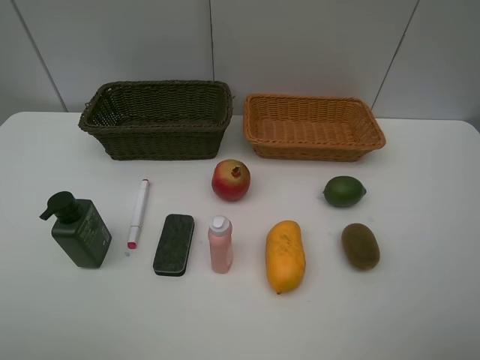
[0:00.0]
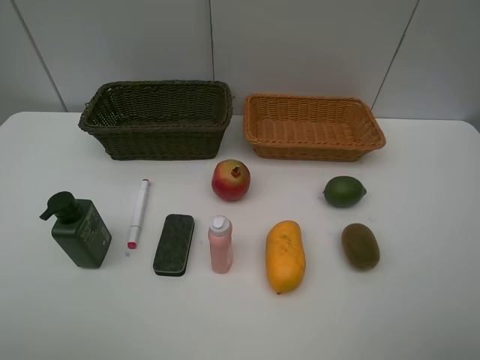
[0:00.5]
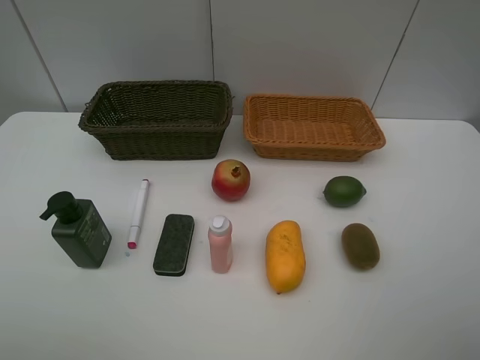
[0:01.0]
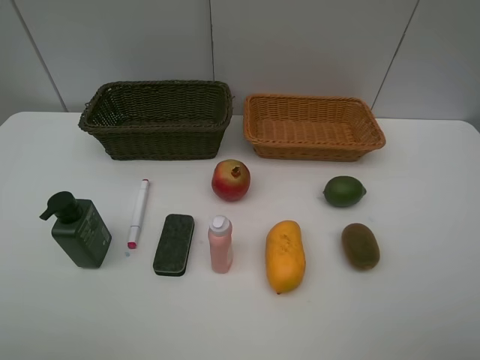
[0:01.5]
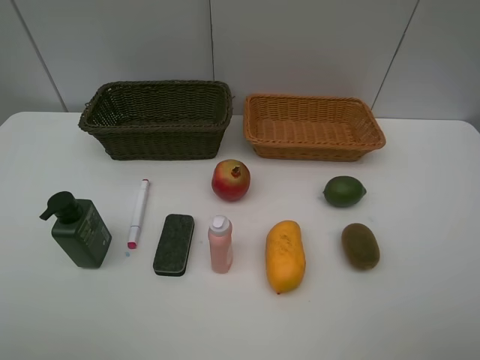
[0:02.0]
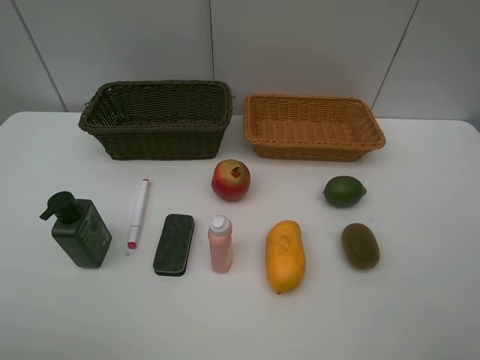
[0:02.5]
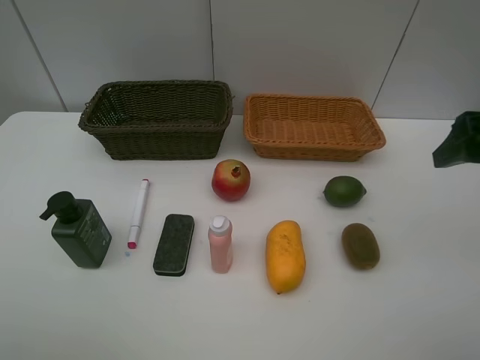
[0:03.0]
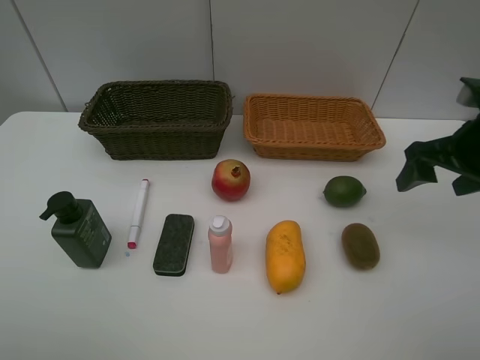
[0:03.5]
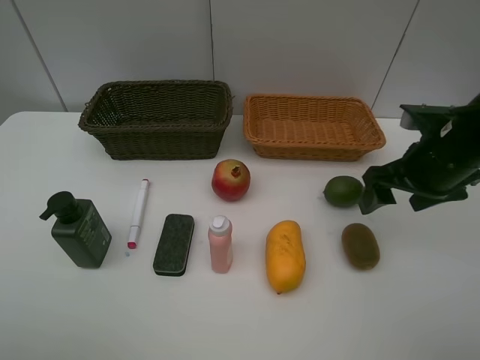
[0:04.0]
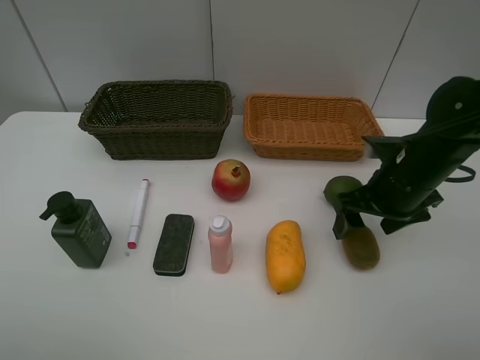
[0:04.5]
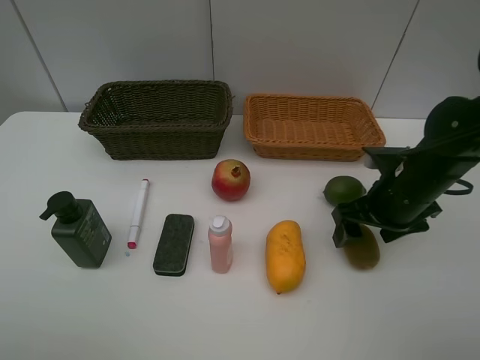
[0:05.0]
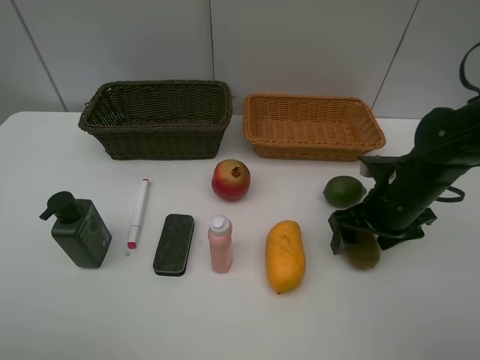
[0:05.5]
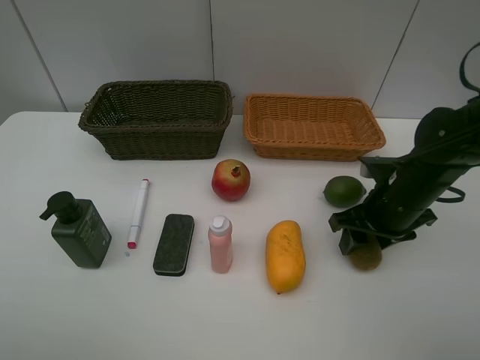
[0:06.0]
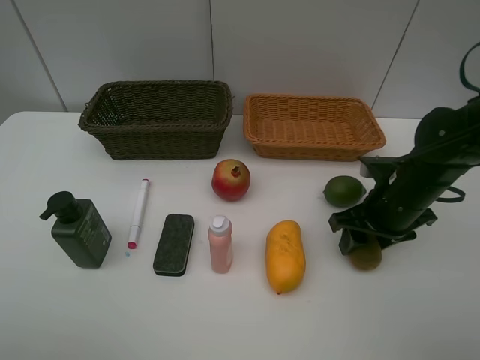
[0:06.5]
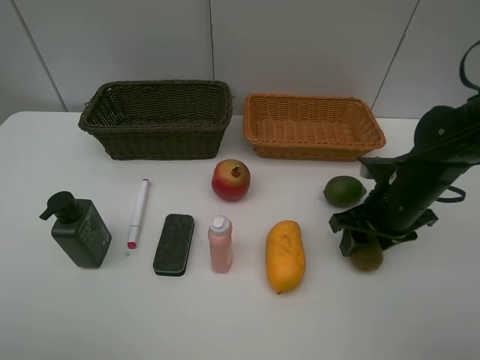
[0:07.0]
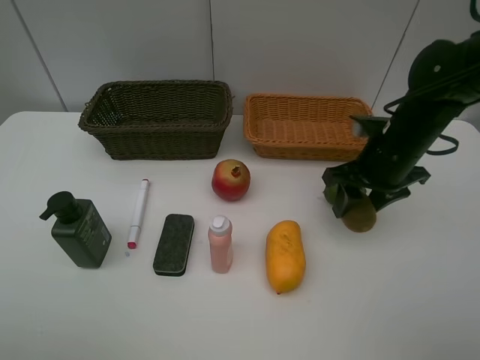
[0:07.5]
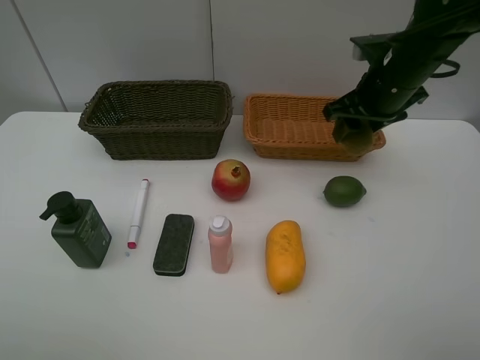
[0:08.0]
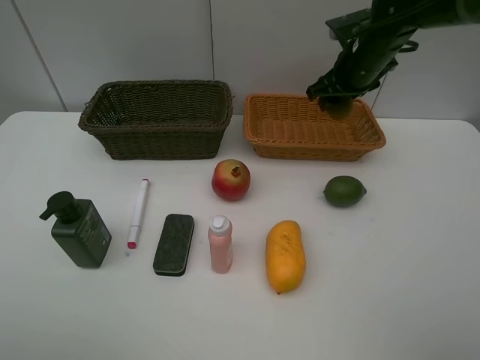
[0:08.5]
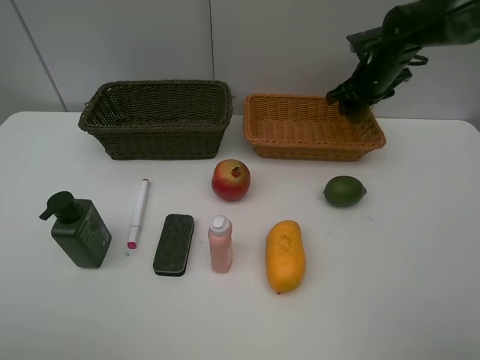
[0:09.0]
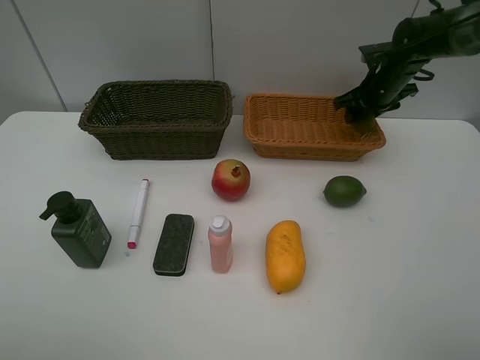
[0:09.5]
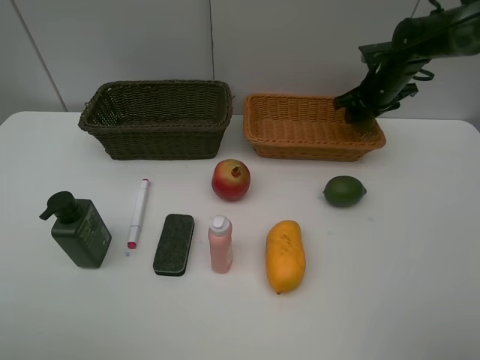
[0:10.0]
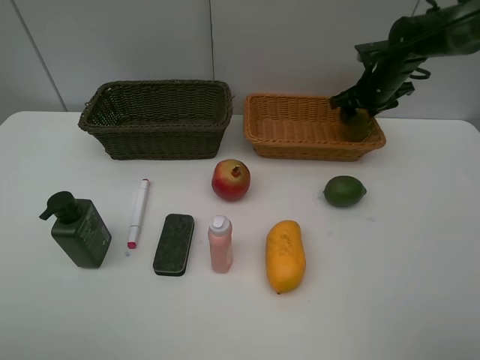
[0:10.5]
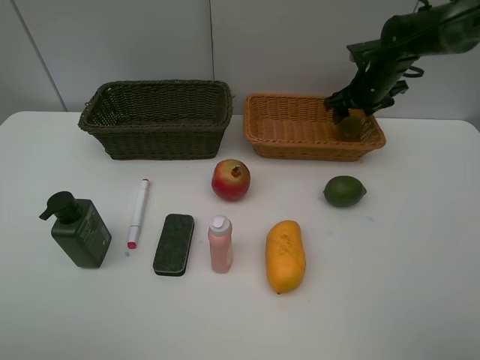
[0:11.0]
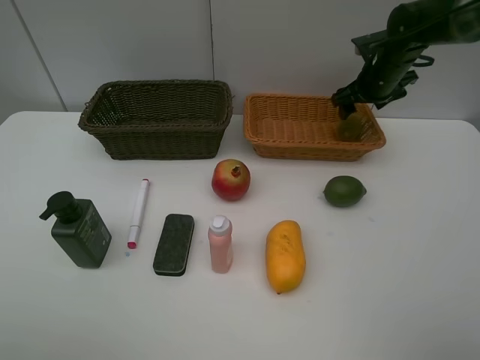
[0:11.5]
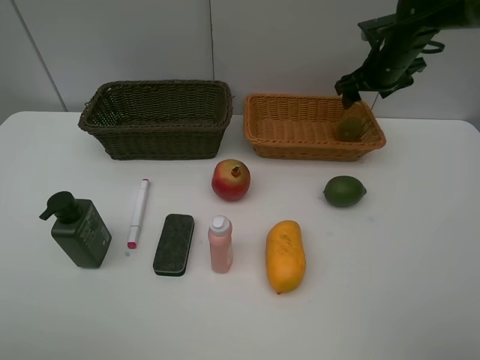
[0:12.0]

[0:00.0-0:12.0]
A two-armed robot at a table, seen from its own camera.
Task of the whole recording: Place multiple objects separately in different baskets.
Step, 0:00.0 to 0:07.0: Pick up kiwi with right gripper.
Step, 0:07.5 to 0:11.5: Place the kiwi in the light basket with right gripper.
0:00.0 to 0:02.0: Neither gripper changes place.
0:02.0 to 0:04.0: The right gripper moves forward, approximately 25 cm.
0:04.0 to 0:06.0: The right gripper goes about 5 cm downward, and closes.
0:06.0 to 0:08.0: The right gripper moves upward and forward, about 15 cm.
0:08.0 to 0:10.0: The right gripper moves forward, downward and to the right, about 15 cm.
0:10.0 to 0:12.0: The right gripper changes place by about 5 cm, and opens up.

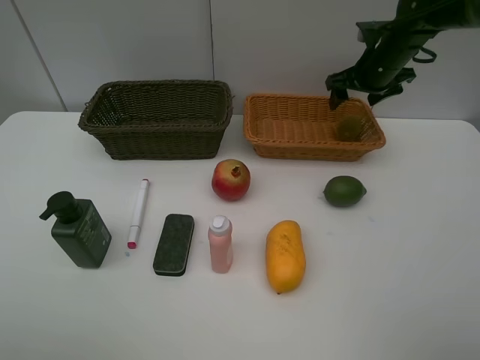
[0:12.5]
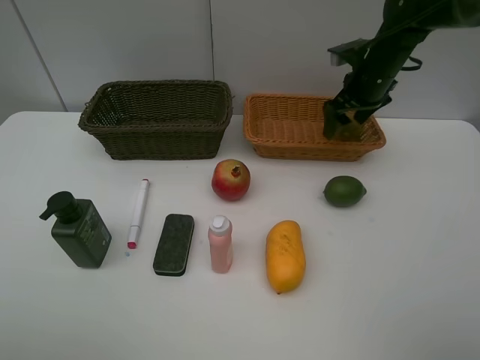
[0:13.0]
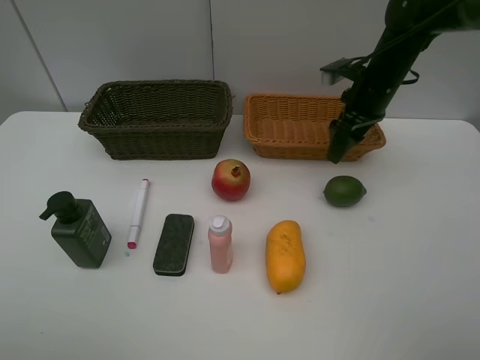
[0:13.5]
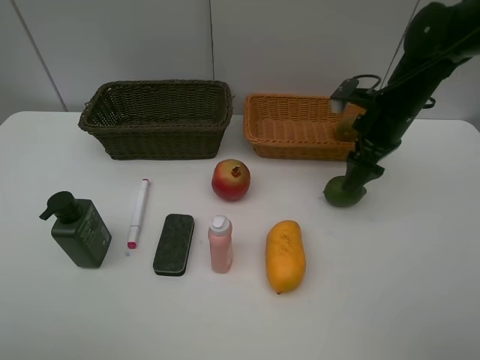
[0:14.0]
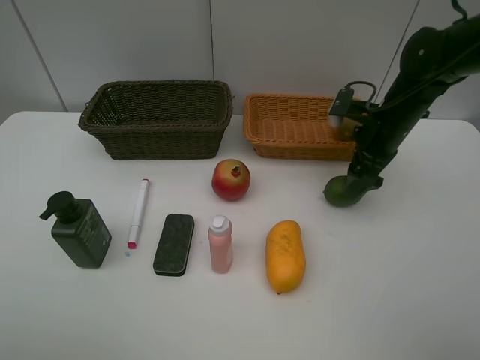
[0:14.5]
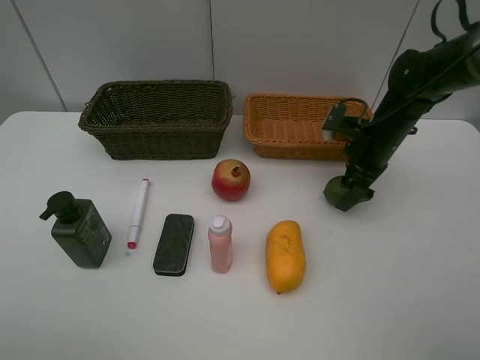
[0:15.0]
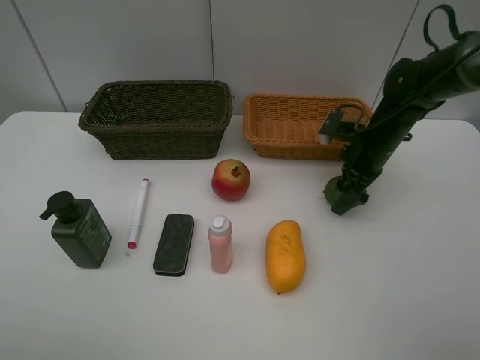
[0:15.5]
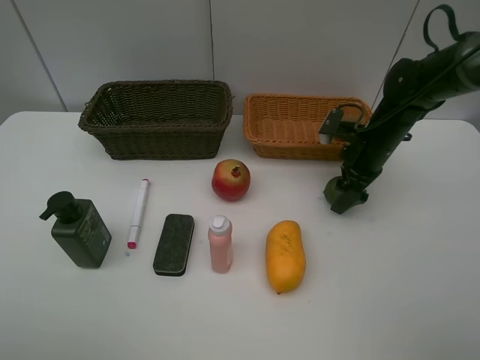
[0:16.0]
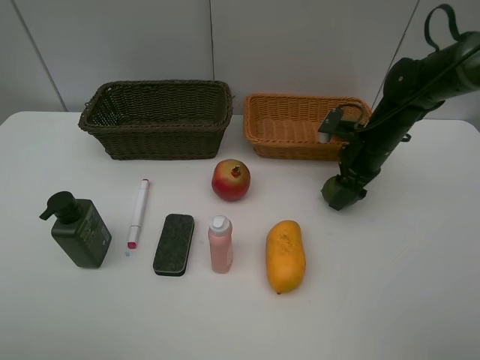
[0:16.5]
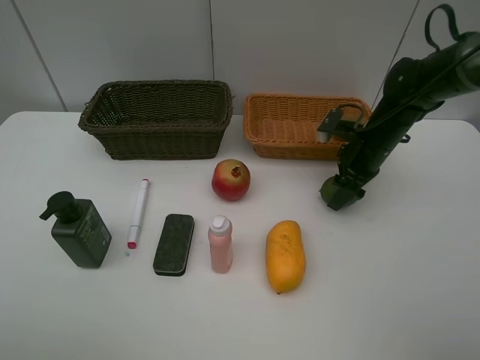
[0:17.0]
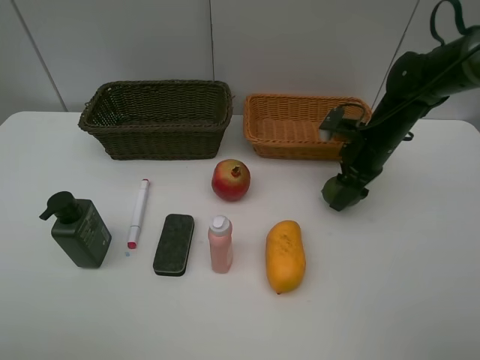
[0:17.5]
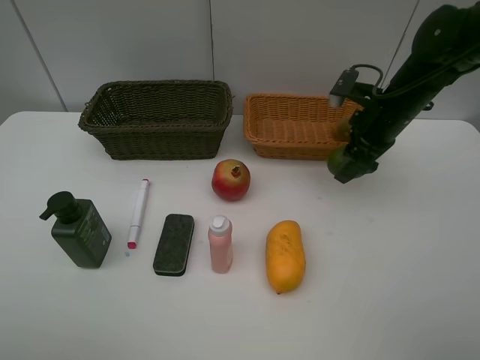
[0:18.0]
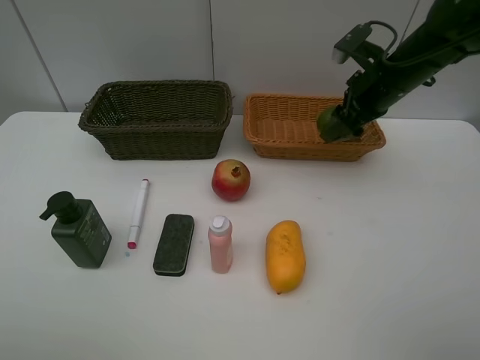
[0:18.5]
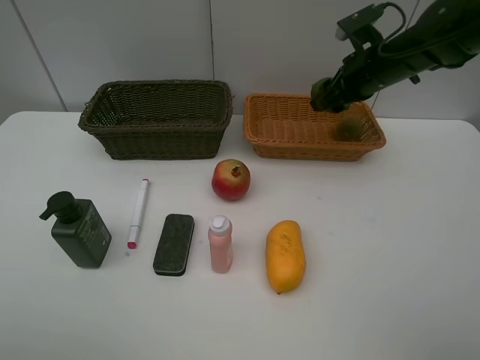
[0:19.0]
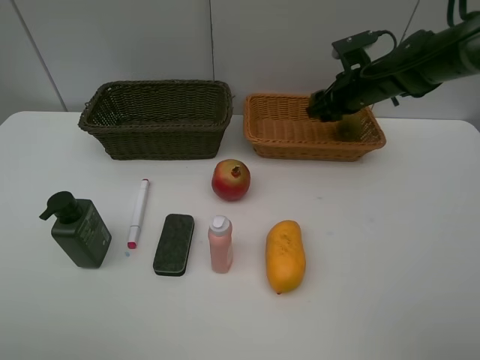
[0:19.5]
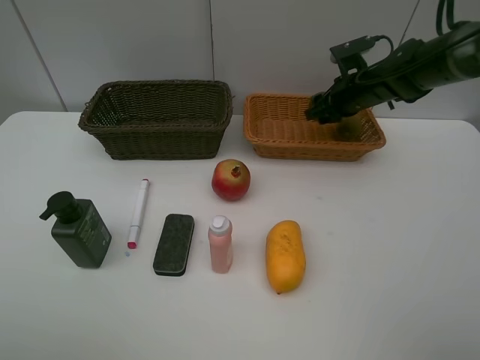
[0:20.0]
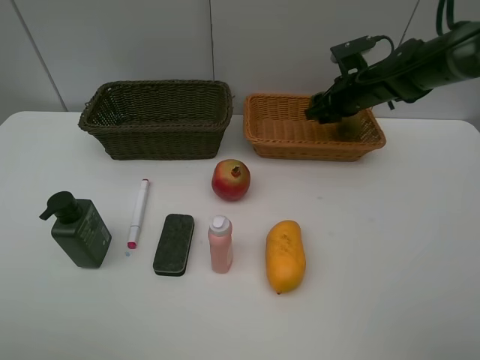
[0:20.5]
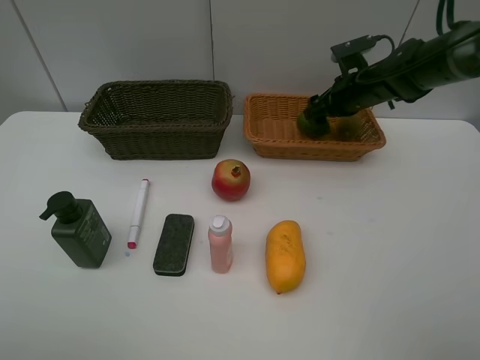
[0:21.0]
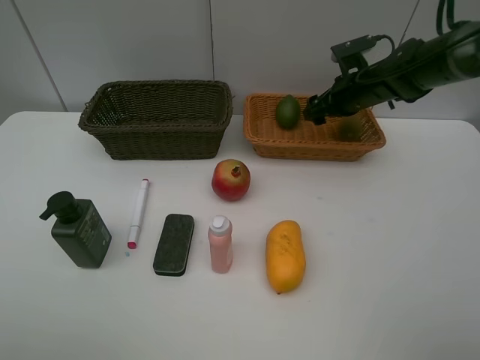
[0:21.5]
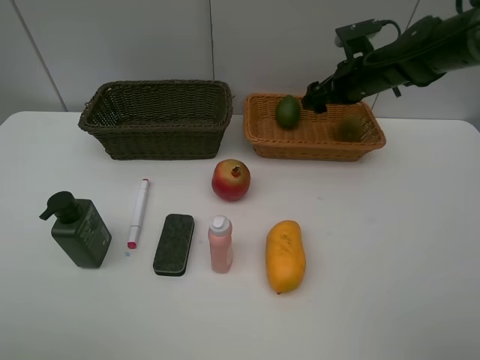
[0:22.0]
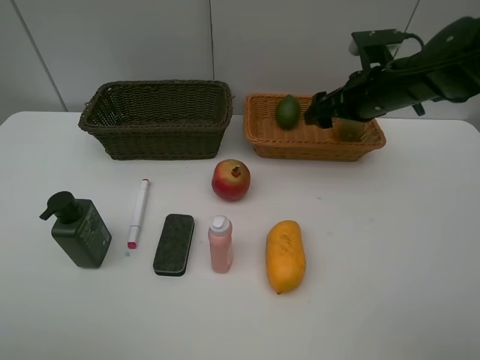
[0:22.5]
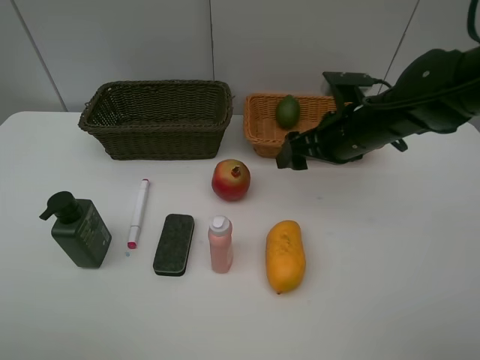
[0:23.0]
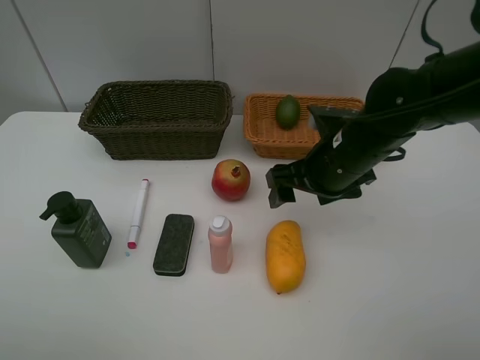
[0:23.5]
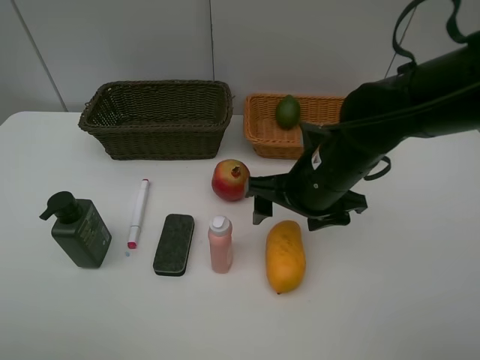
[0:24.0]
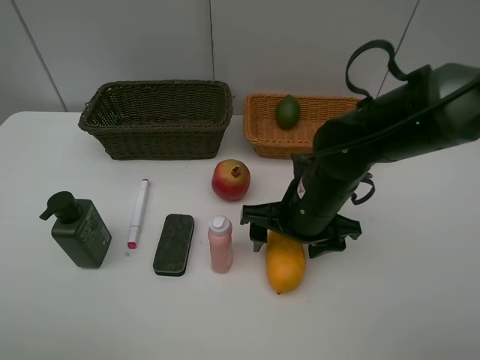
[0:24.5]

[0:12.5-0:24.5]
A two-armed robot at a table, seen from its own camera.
Task of the whole recording: Place multiple objects separately in different baskets.
Step, 0:12.5 to 0:18.0: Pick up the lime with right gripper.
Step, 0:18.5 to 0:21.5: Place the lime in the light basket with right gripper.
0:12.5 to 0:14.5: The right gripper shifts roughly 10 cm backward and downward.
0:14.5 to 0:16.5: The right gripper closes up.
0:16.5 to 0:18.5: The right gripper travels upward by about 10 cm.
0:18.5 to 0:20.5: The right gripper moves forward and downward, some 10 cm.
0:20.5 to 0:22.5: The right gripper travels backward by some 10 cm, and opens.
0:22.5 to 0:24.5: The right gripper shifts roughly 20 cm backward, to the left and downward.

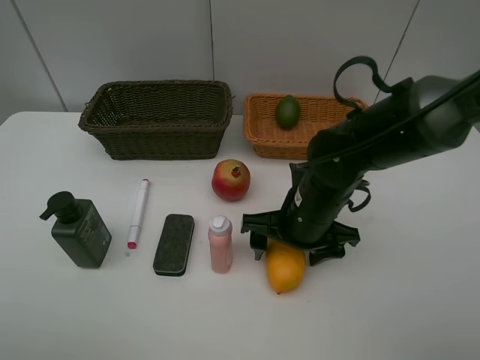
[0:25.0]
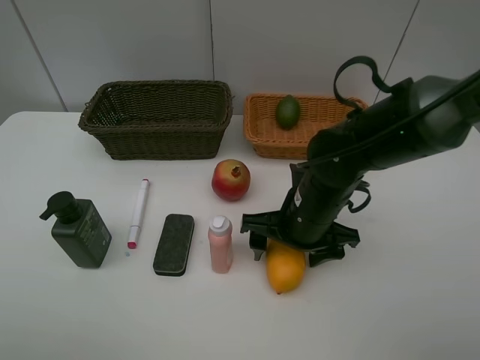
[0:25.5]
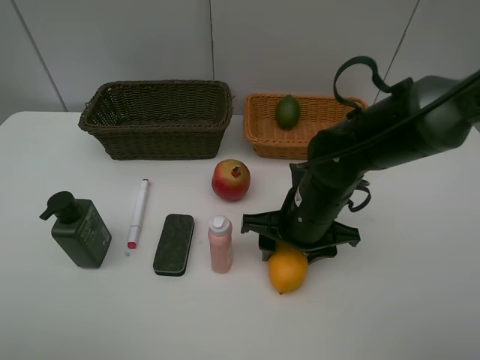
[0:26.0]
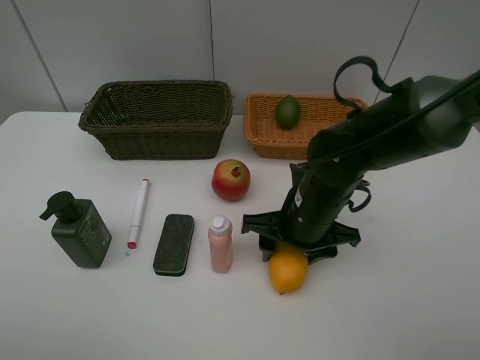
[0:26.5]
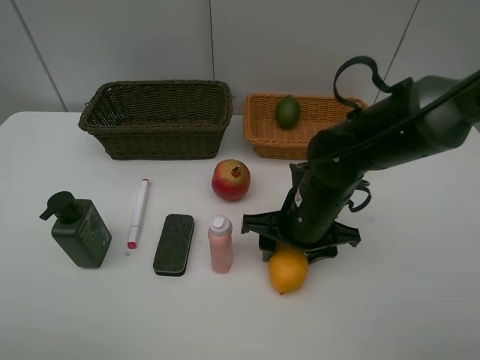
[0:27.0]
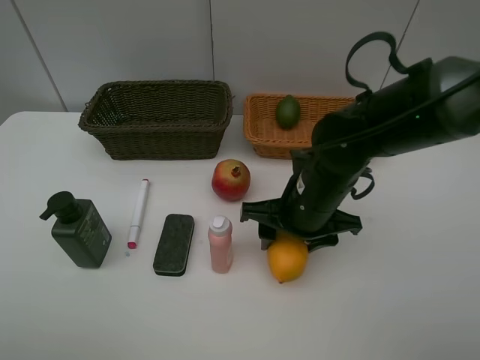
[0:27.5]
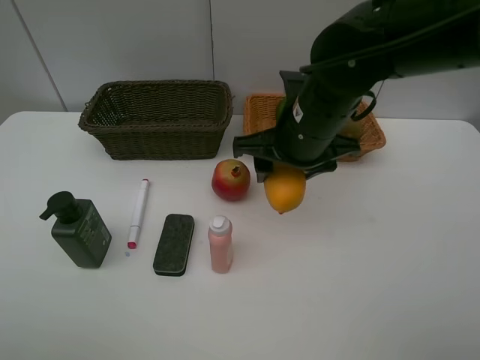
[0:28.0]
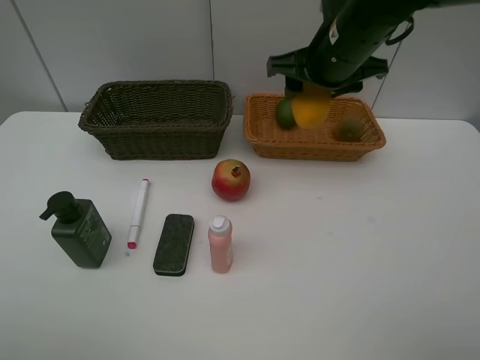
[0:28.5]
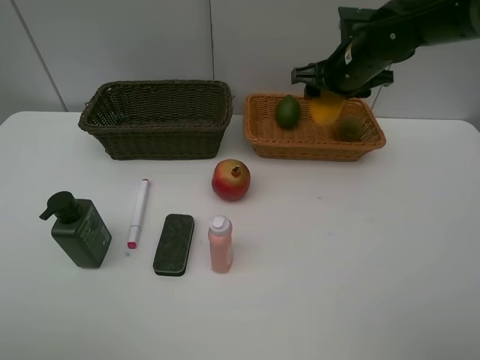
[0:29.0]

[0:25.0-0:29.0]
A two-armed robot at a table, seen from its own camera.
Task of the whole recording: Place multiple objects separately in different baskets.
Step, 0:25.0 to 0:27.5: Pick up the mango with right gripper.
0:27.0 to 0:29.0: The right gripper travels forward, upward and to the right by some 20 cm.
